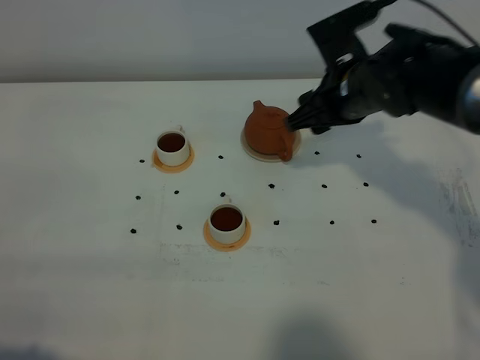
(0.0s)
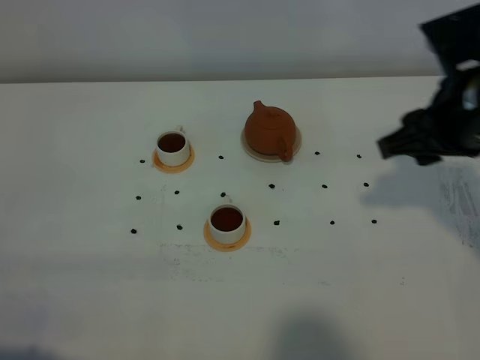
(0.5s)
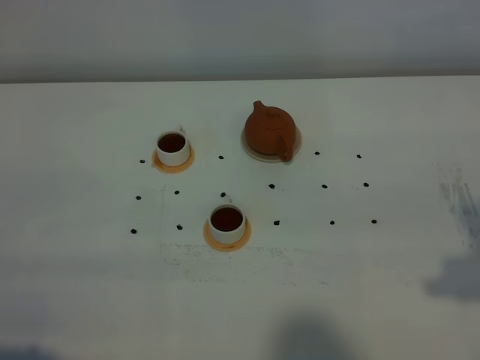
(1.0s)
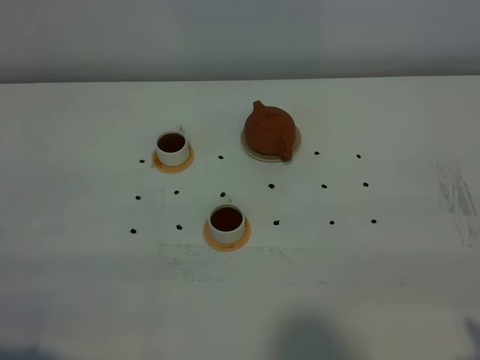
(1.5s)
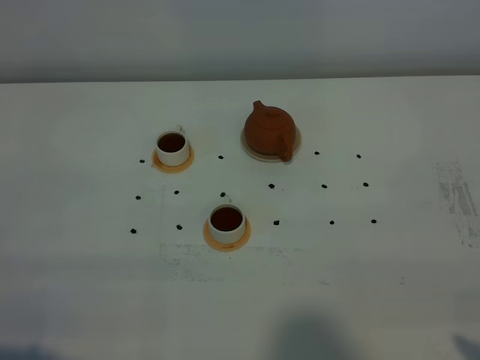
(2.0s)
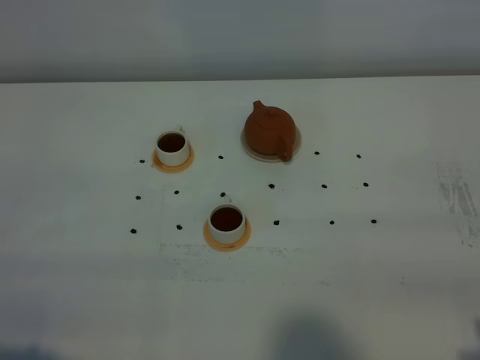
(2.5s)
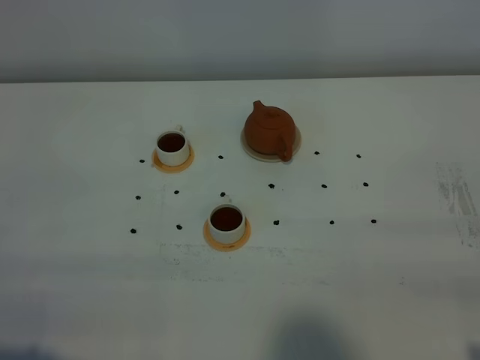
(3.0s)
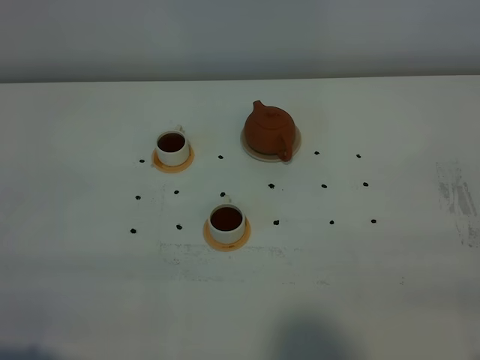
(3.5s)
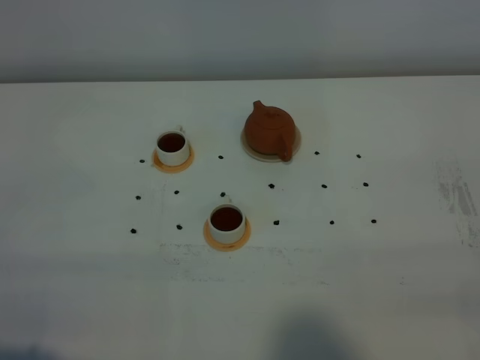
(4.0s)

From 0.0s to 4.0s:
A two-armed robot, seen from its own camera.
Task of the whole recording: grasp the brown teapot and pour the tea into the two white teacups one by one, put the brown teapot back in its original place.
From 0.0s to 2.0s: The right gripper goes some 35 cm backward and to the right.

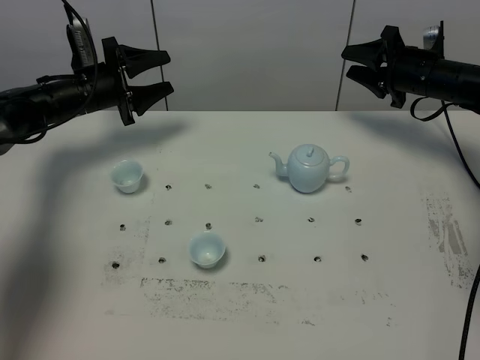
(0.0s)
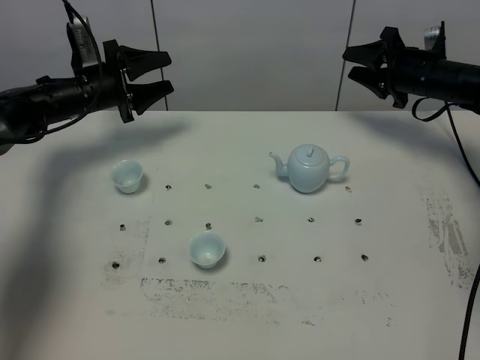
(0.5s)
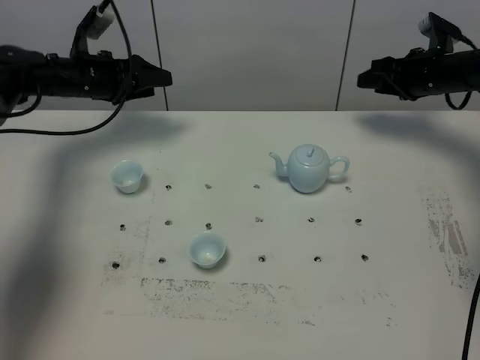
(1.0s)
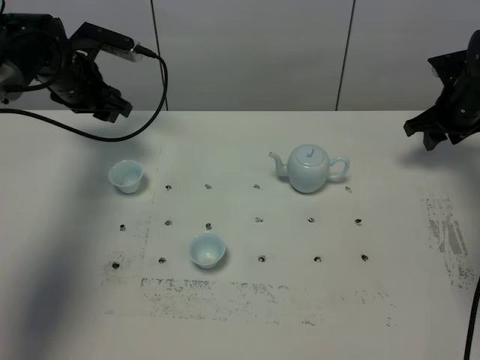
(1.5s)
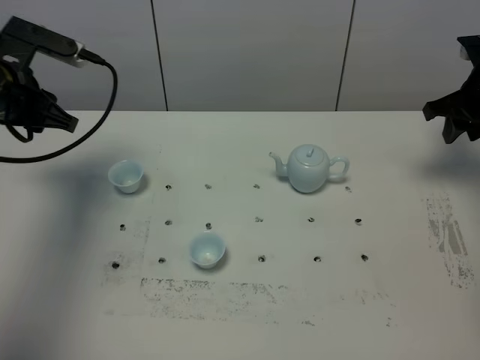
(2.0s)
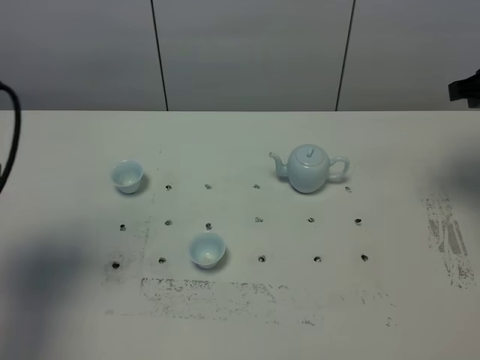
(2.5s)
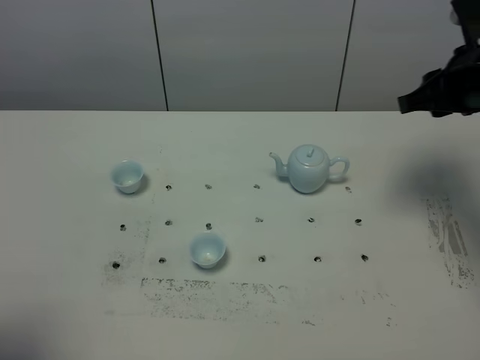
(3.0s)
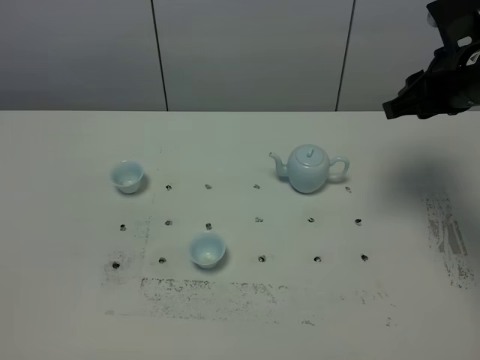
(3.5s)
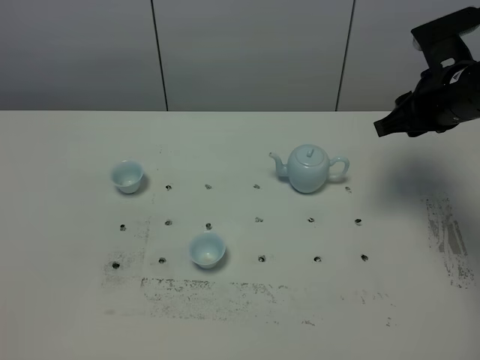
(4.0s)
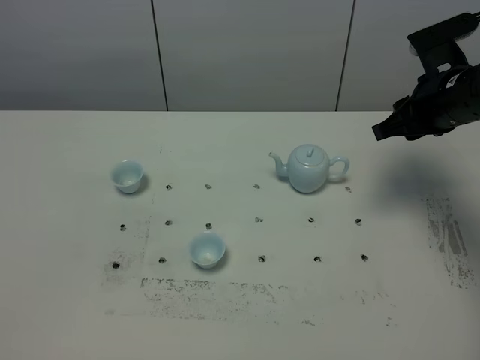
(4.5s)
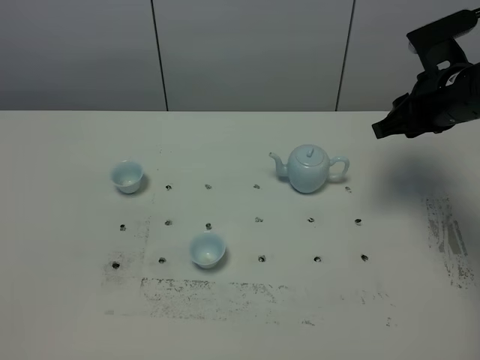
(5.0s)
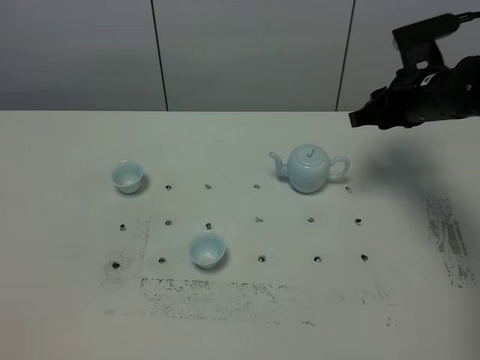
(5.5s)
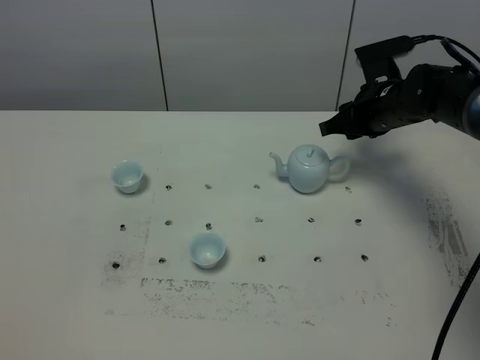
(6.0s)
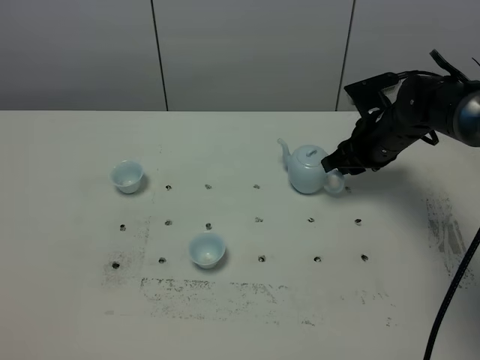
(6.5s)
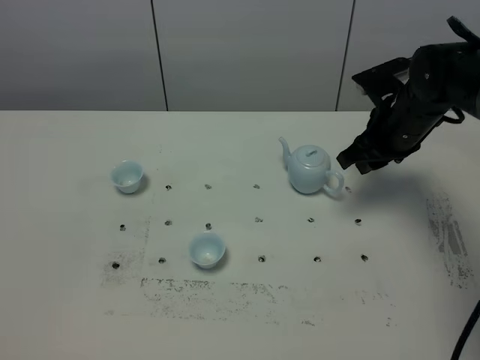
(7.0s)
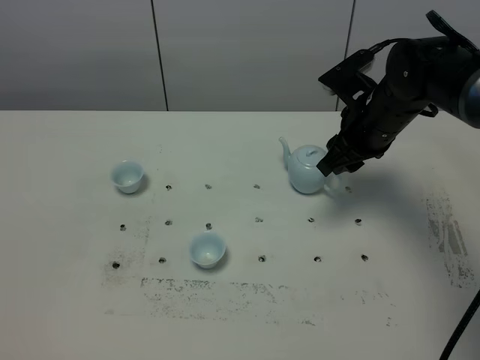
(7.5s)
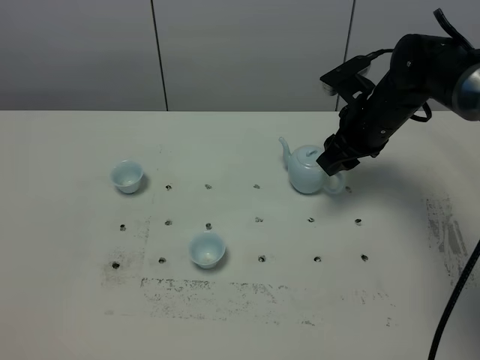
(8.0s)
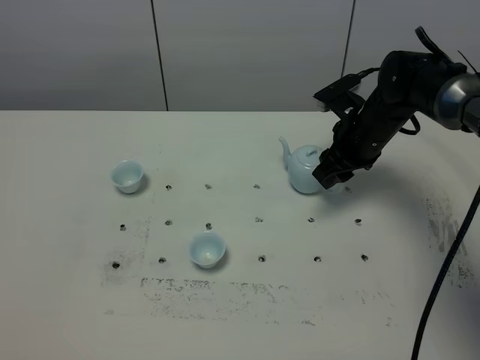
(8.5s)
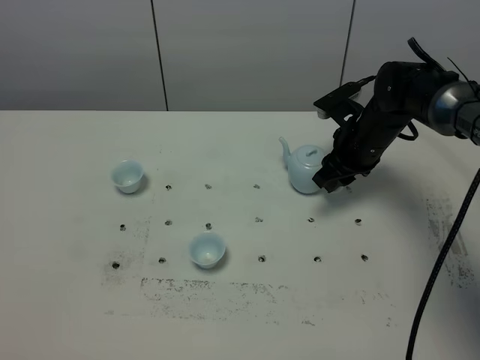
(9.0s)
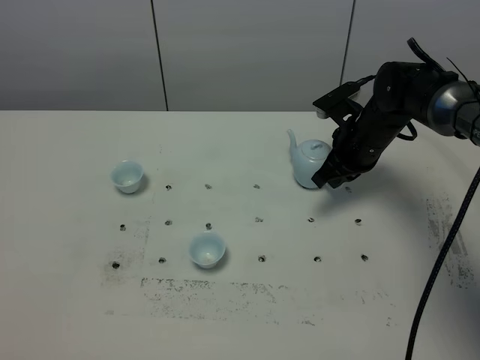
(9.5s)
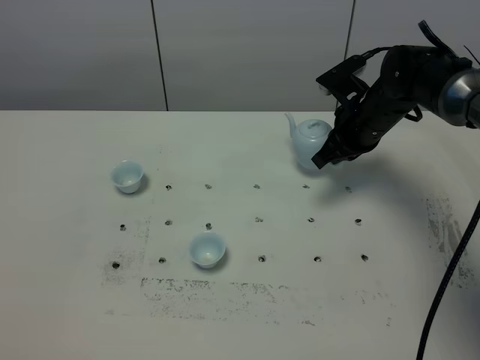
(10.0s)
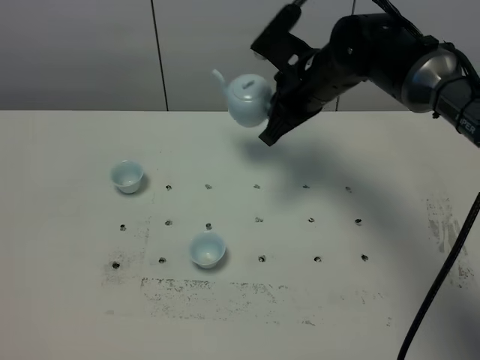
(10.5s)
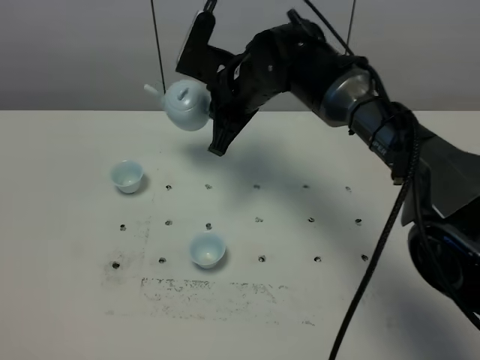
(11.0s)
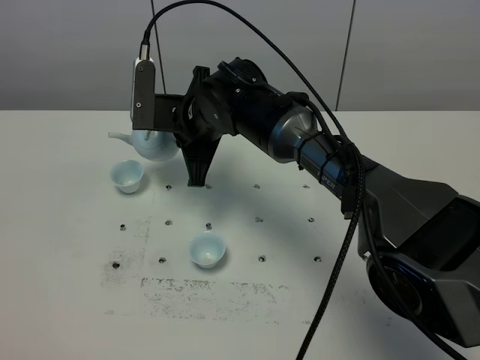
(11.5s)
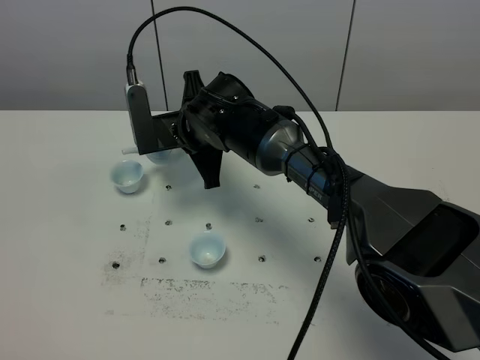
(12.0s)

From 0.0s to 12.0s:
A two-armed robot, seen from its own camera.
Task of the whole recording: grasp the blue porcelain teapot and pour the tea into the two blue porcelain teacups one by one, put the blue porcelain teapot back in its original place.
Step, from 0.0s to 9.5s: Pick up the teapot with the right gripper.
From 0.0s to 2.0s: The right gripper heads backward, upward and to the right, covering roughly 10 cm, while the left gripper goes approximately 20 cm backward and upward, and closes up.
From 2.0s to 4.0s: The left gripper shifts approximately 40 cm backward; the right gripper shifts roughly 10 cm to the left and backward.
From 4.0s to 6.0s: The right gripper goes about 10 cm downward and forward.
From 8.0s to 10.0s: The right gripper closes its fingers.
From 10.0s to 12.0s: The right gripper is displaced to the left by roughly 20 cm.

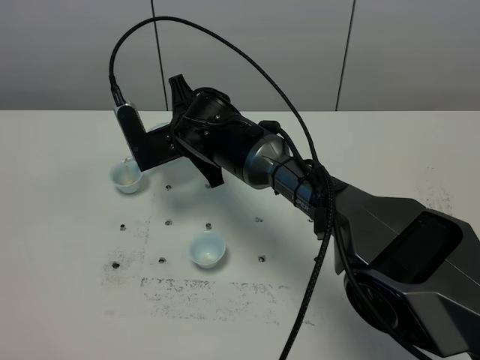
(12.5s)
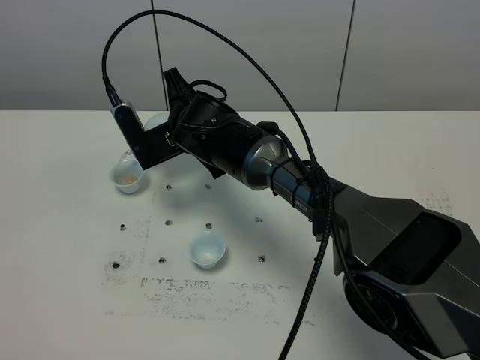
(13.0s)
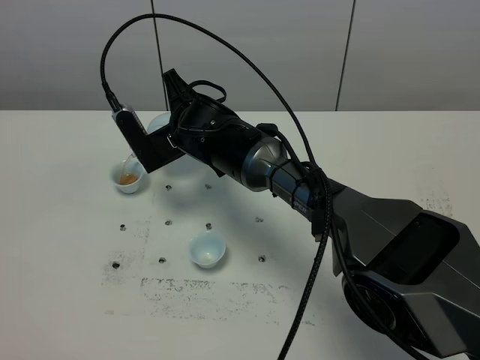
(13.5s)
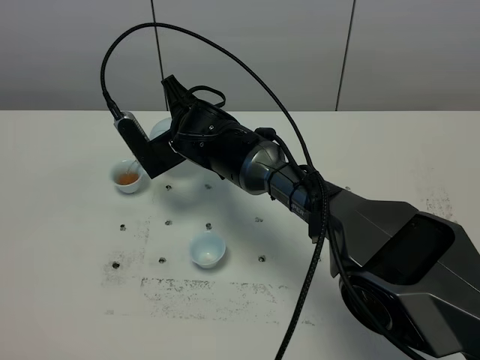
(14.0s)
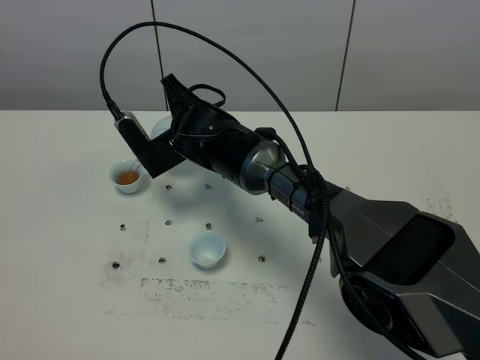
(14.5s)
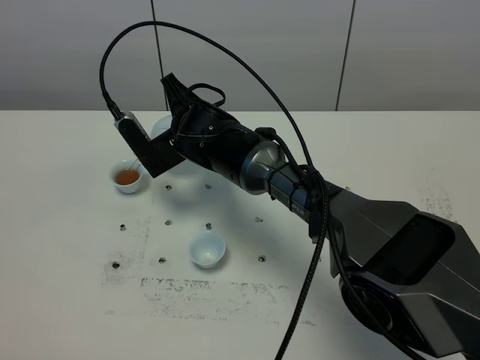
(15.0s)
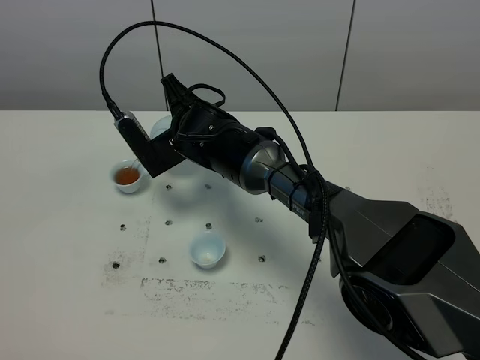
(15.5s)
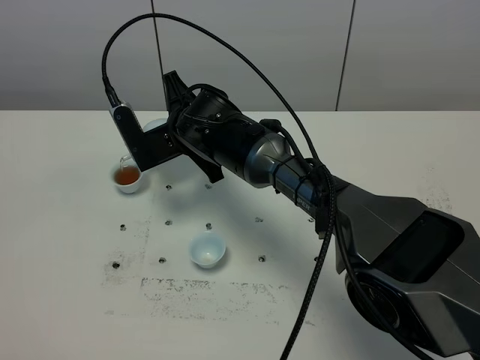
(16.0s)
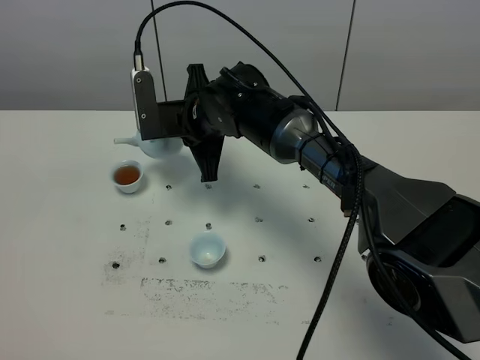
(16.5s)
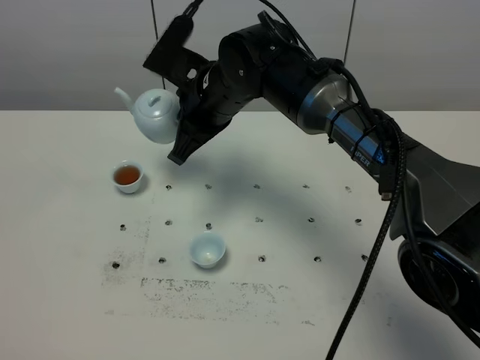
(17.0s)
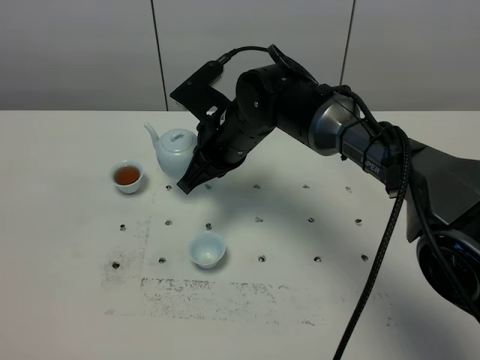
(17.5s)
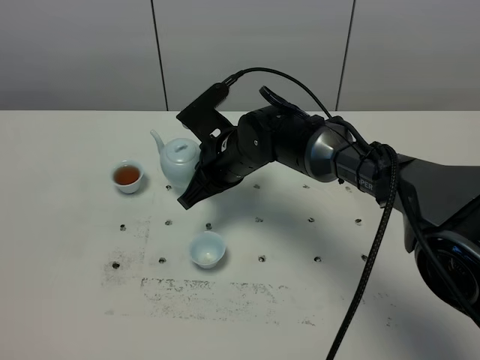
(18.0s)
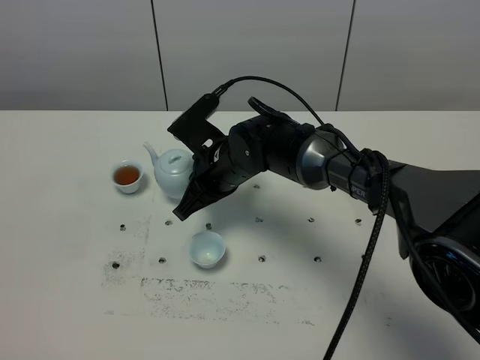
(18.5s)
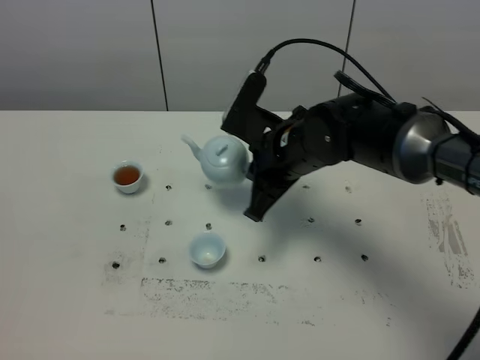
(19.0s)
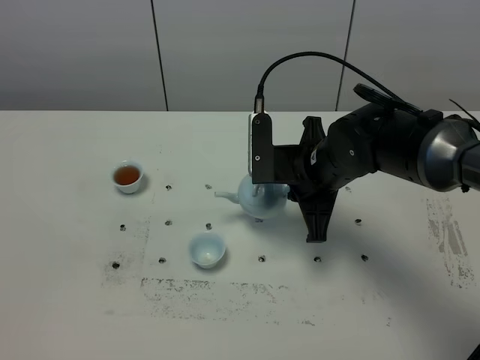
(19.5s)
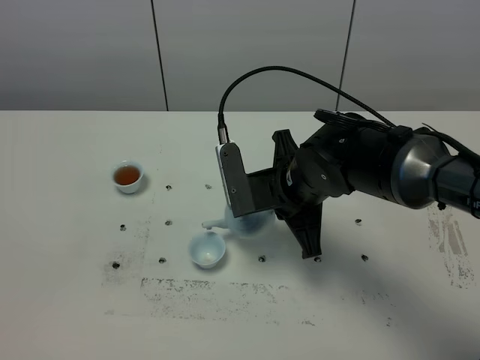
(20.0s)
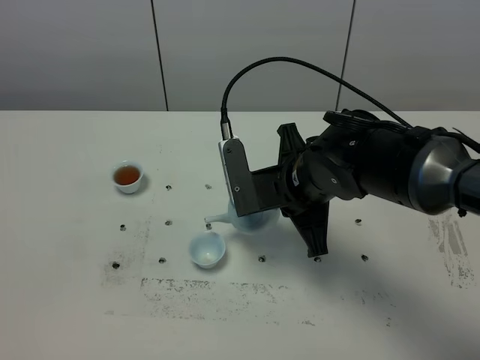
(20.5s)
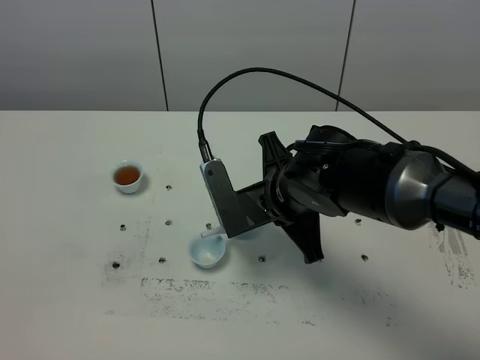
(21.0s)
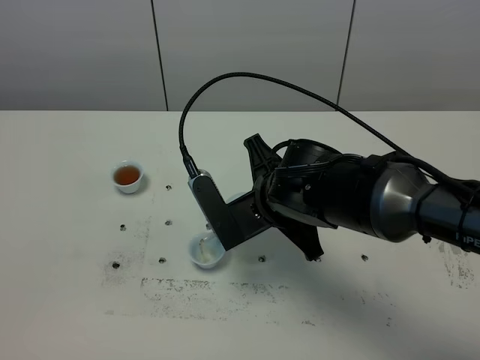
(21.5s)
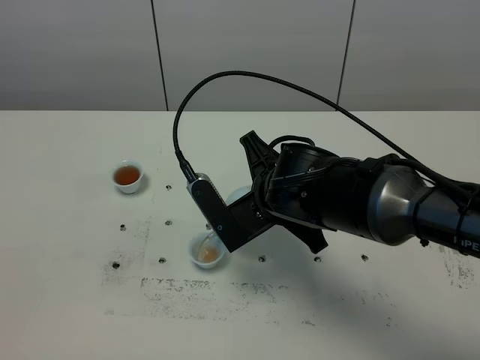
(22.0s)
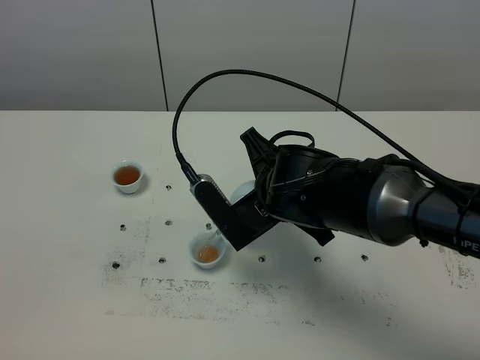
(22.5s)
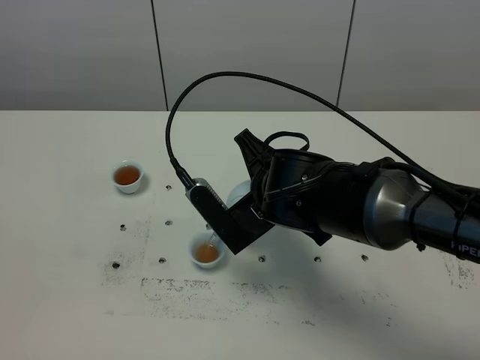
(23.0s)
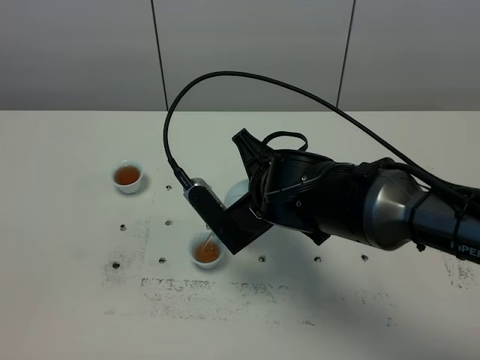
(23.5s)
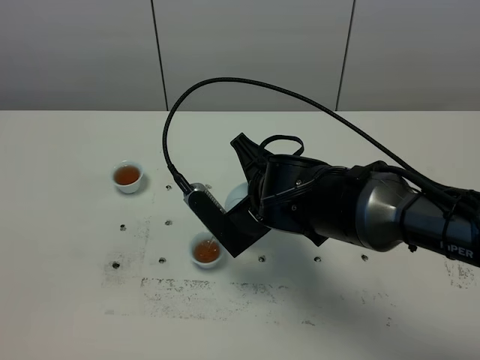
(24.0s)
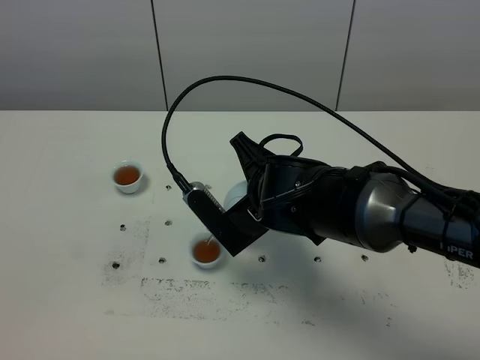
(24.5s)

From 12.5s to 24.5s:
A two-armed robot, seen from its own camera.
Task of the whole recording: grasp the blue porcelain teapot and pour the tea into the two blue porcelain teacups one by one, put the blue porcelain teapot back in its original place.
From 12.5s to 14.5s: The grippers stay close to where they were, moving slightly.
From 16.5s to 18.5s: The right gripper changes place by roughly 5 cm.
From 18.5s to 20.5s: The right gripper shifts some 10 cm to the right and backward.
From 22.5s to 24.5s: Neither gripper changes place.
